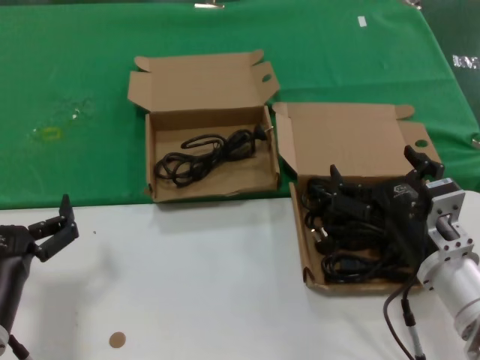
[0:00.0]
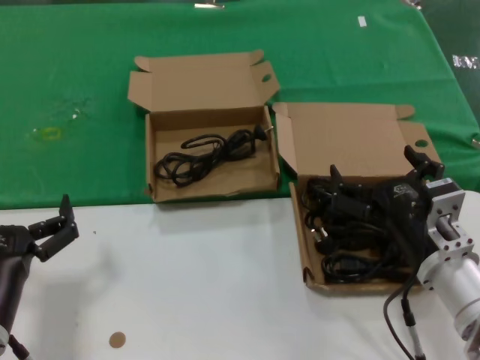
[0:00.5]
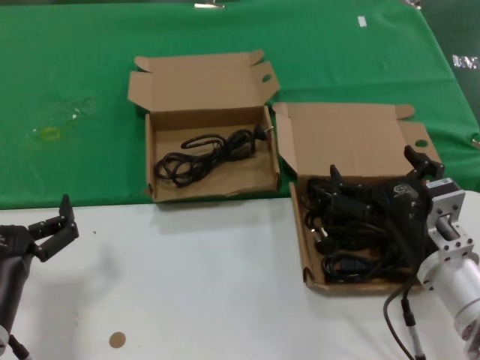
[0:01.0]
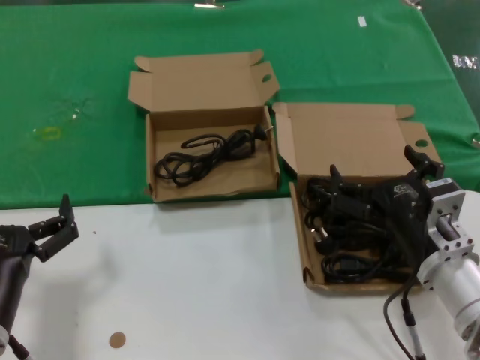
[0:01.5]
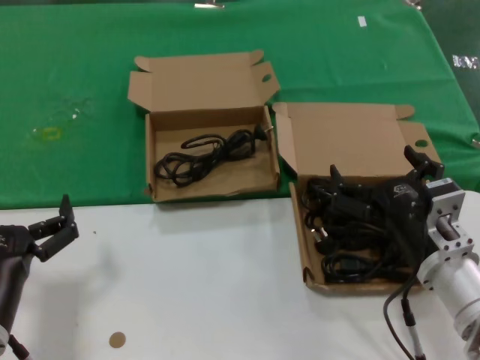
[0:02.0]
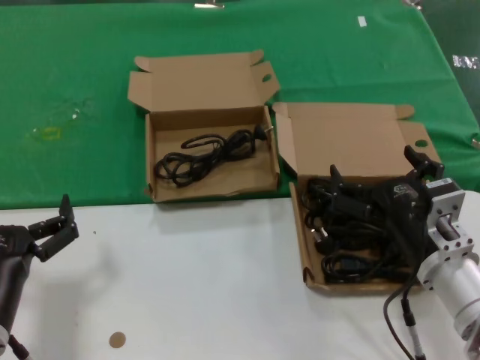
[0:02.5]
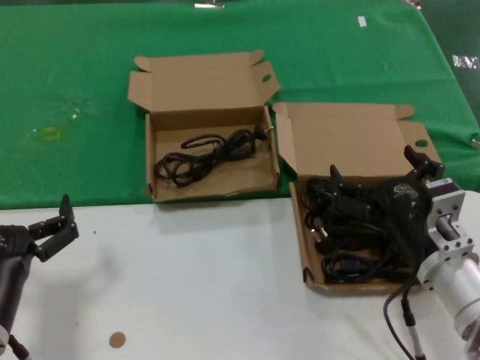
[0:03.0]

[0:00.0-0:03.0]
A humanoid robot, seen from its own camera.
Task of the whole recording: take the parts from the box containing them and put them into an empty box.
0:00.0 to 0:03.0: Both hands stay put.
